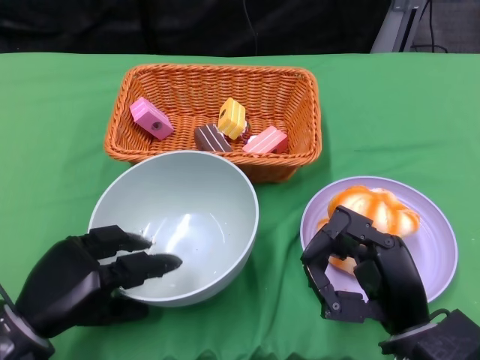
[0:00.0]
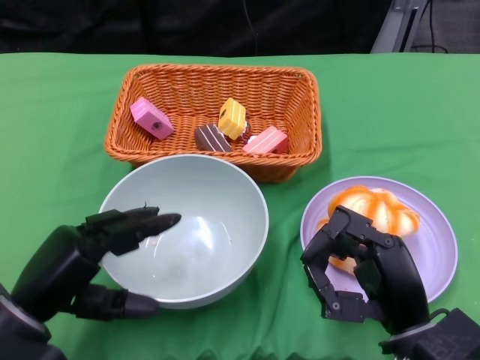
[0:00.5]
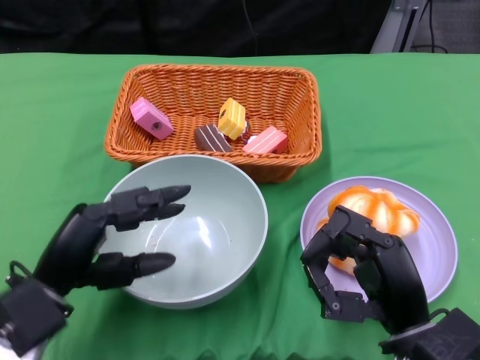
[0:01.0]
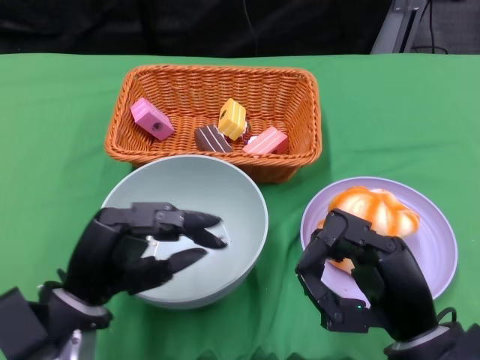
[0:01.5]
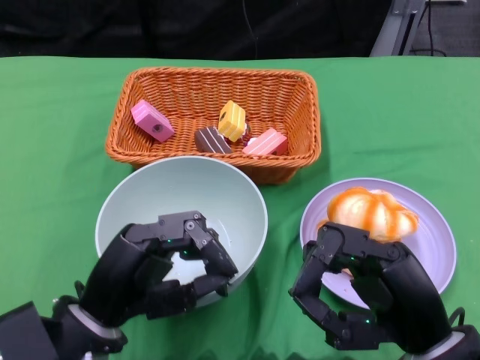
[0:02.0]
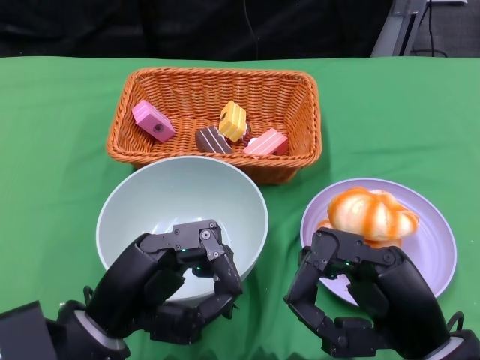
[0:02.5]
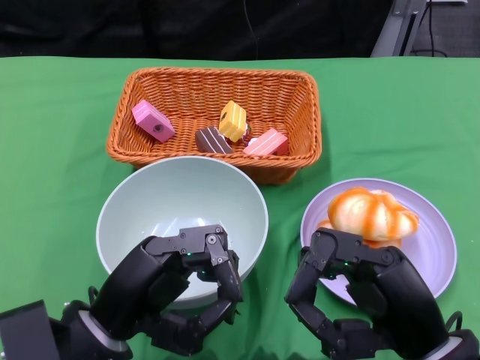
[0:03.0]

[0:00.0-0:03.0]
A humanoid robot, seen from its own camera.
0:00.0 to 0:01.5: The left hand heads to the right, covering about 5 cm.

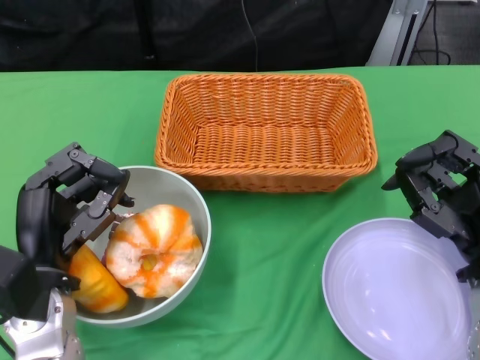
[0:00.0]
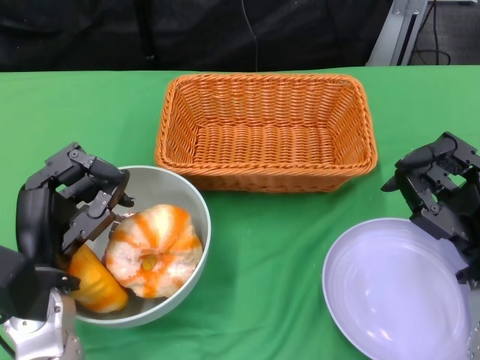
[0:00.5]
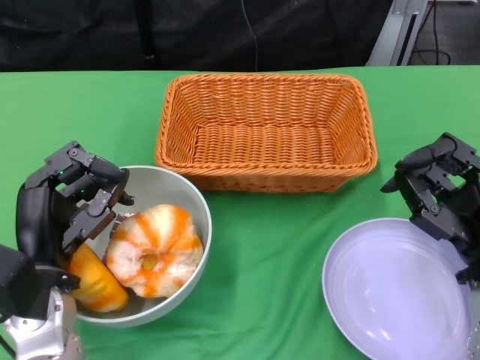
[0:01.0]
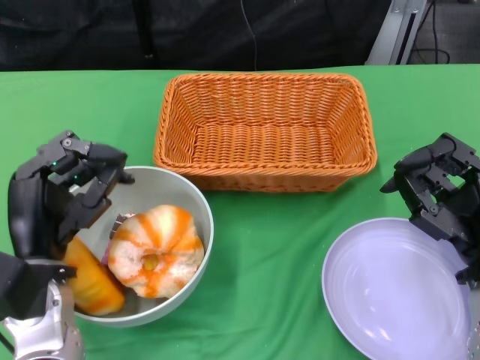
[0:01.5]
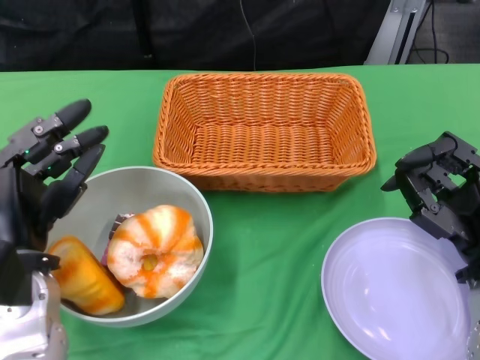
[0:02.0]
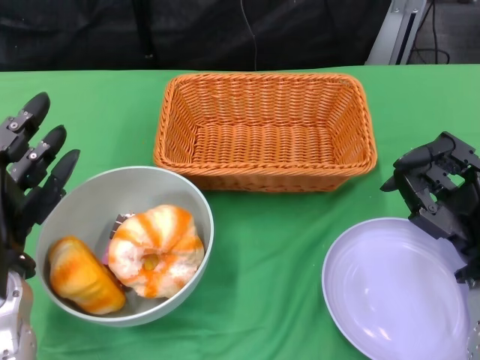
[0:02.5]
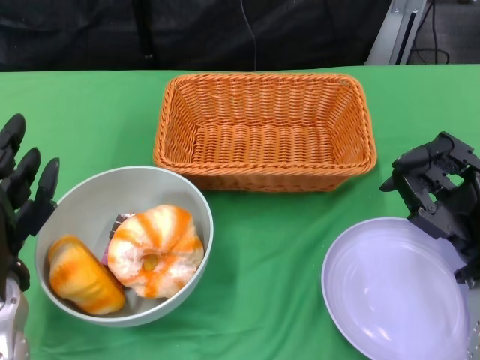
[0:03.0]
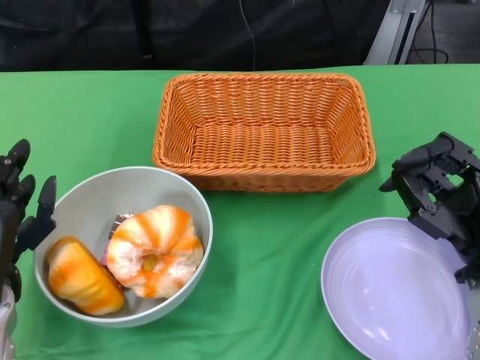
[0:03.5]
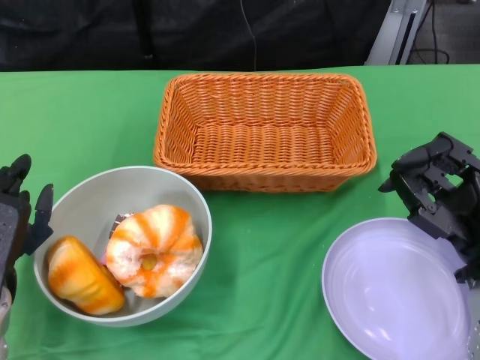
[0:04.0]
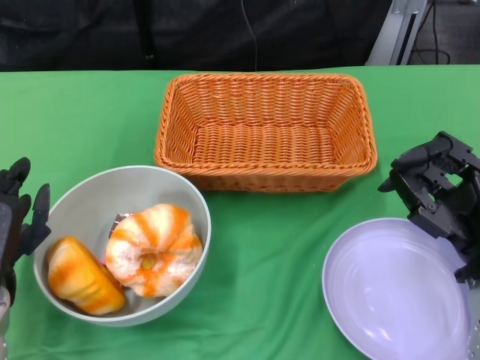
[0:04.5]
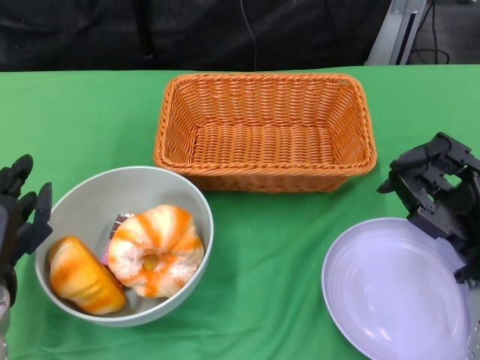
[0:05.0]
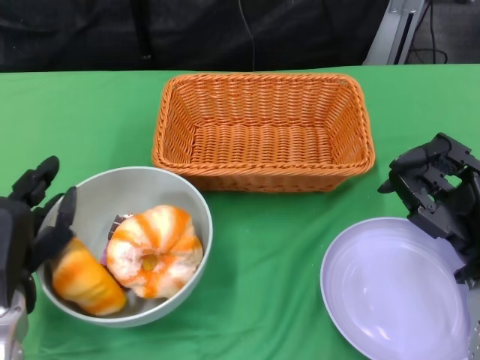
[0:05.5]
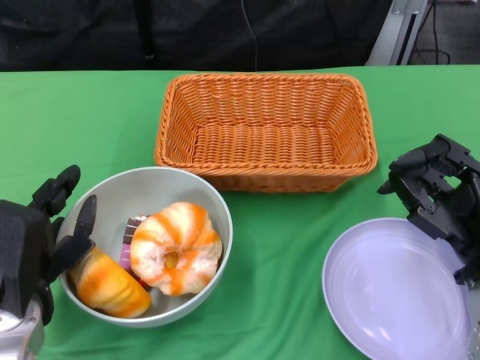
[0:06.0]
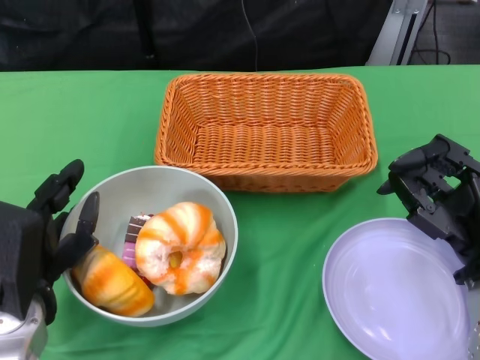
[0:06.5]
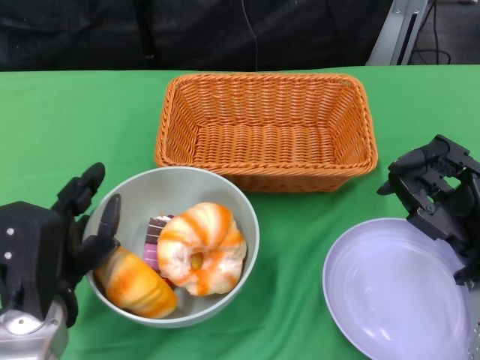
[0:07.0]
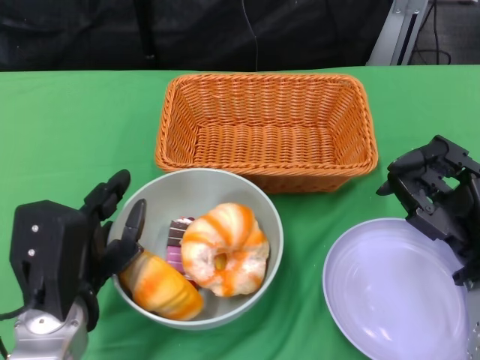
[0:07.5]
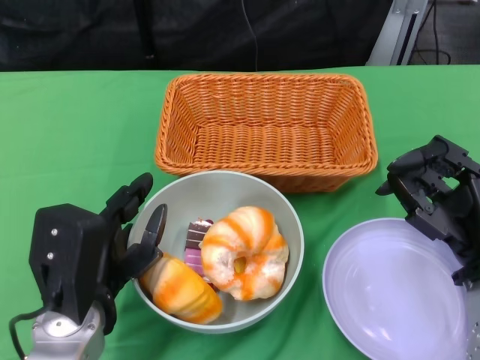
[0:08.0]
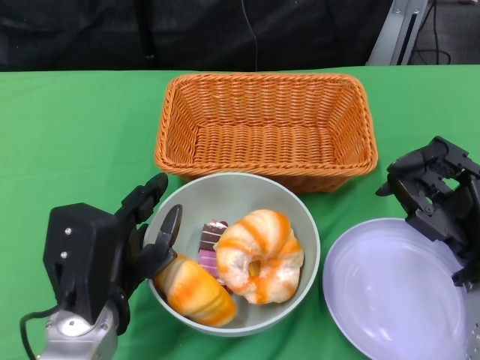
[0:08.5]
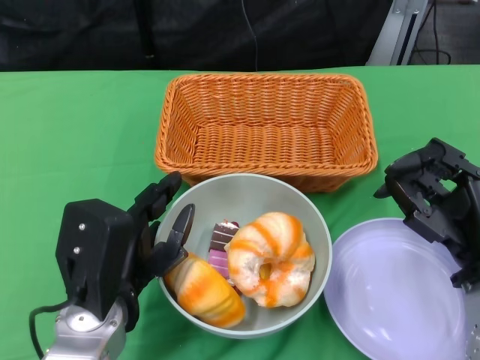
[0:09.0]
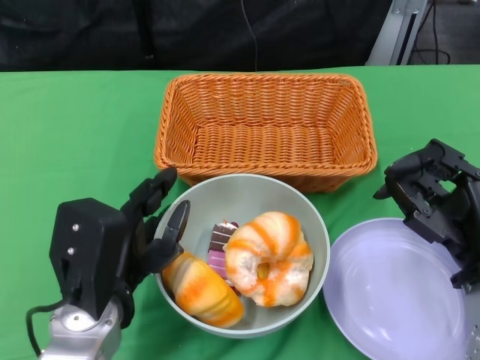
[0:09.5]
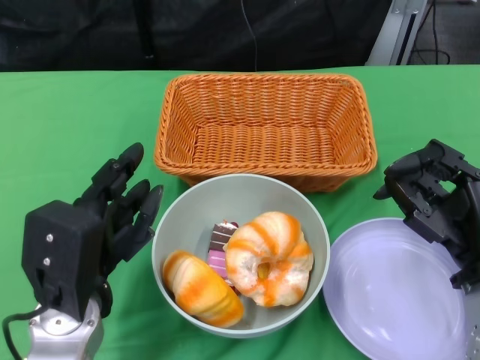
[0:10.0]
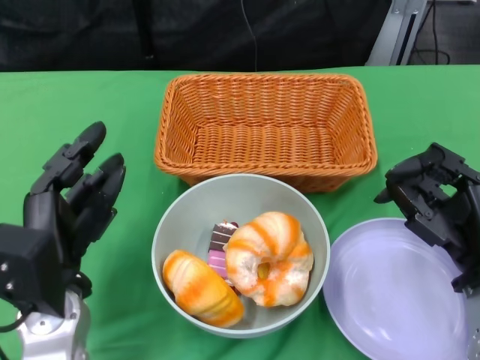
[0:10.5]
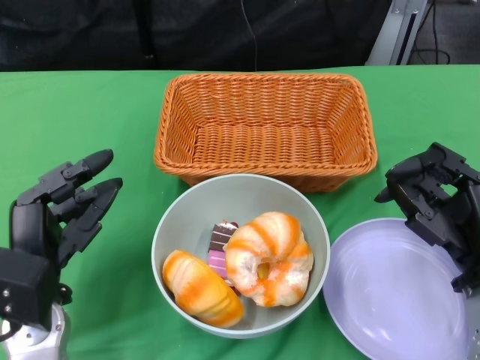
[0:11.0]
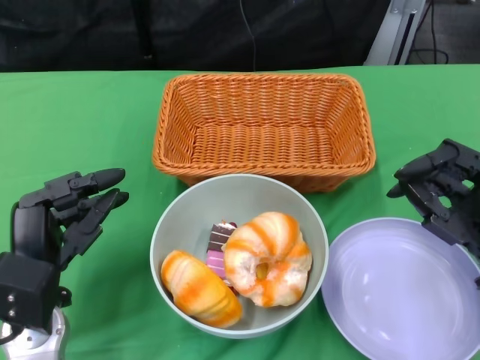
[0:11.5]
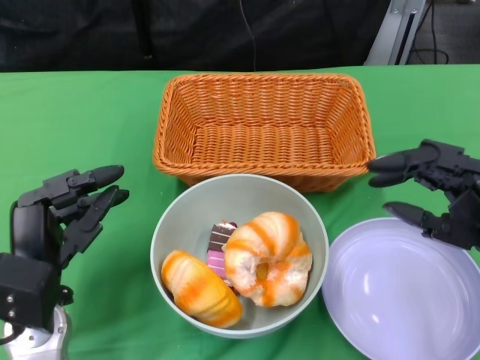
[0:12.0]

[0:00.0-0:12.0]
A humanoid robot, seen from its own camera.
Step, 0:00.0 to 0:10.0: Push the bowl to the center of the table using the left gripper.
0:04.0 to 0:06.0: The hands make only small movements.
0:06.0 to 0:08.0: The left hand travels to the right by some 5 cm.
0:08.0 to 0:10.0: The hands stay close to where they were, moving slightly.
0:10.0 to 0:12.0: The left hand moves approximately 5 cm. The right hand shifts by roughly 5 cm.

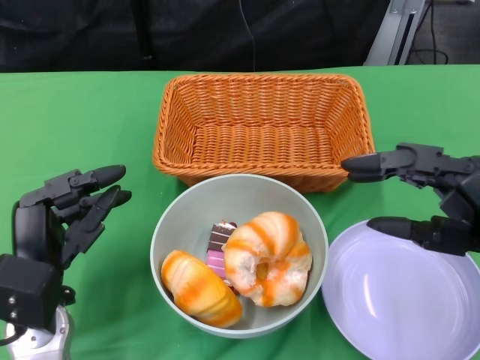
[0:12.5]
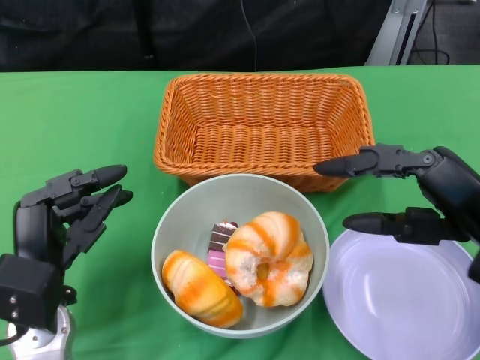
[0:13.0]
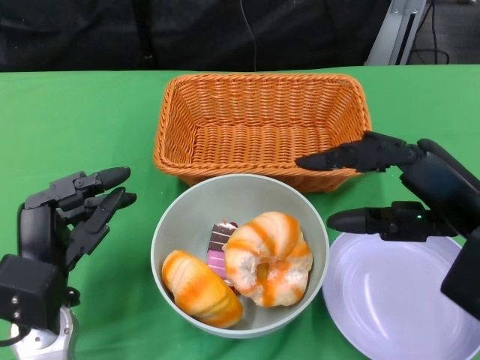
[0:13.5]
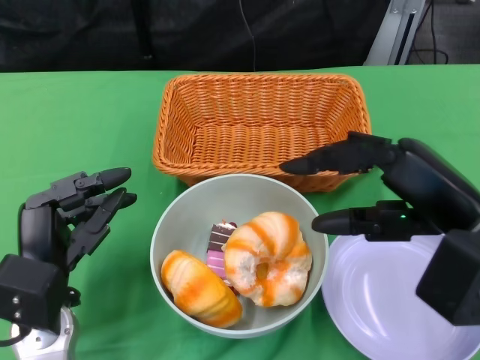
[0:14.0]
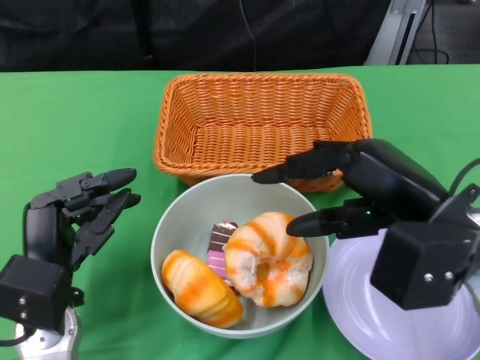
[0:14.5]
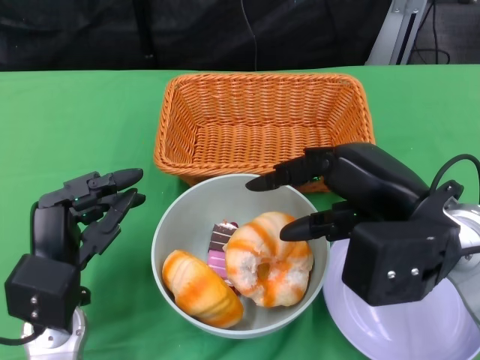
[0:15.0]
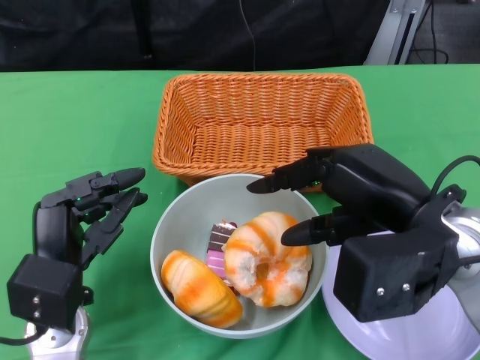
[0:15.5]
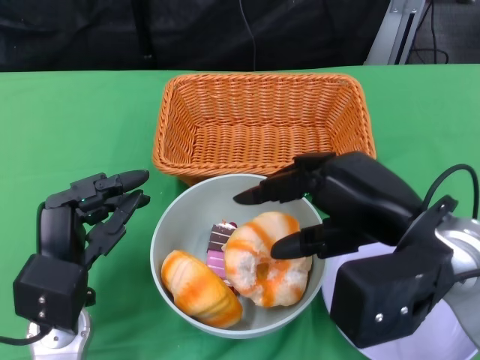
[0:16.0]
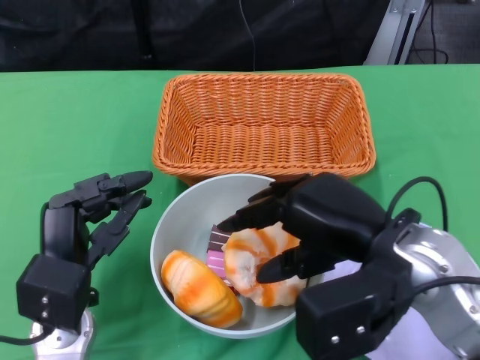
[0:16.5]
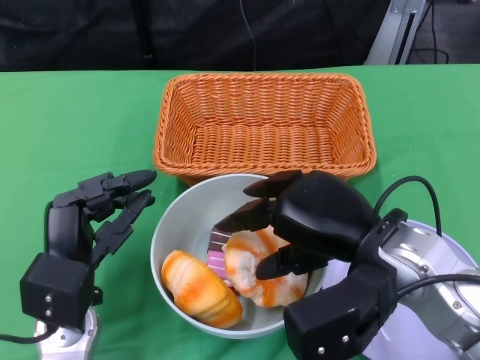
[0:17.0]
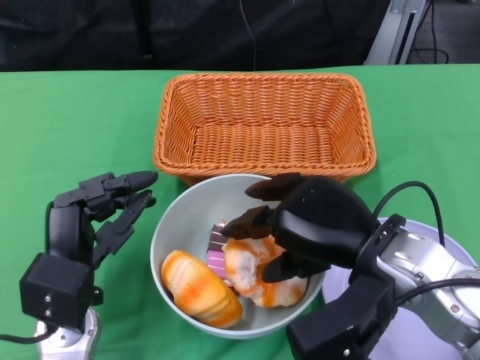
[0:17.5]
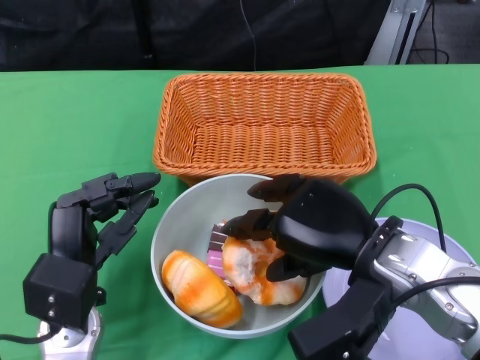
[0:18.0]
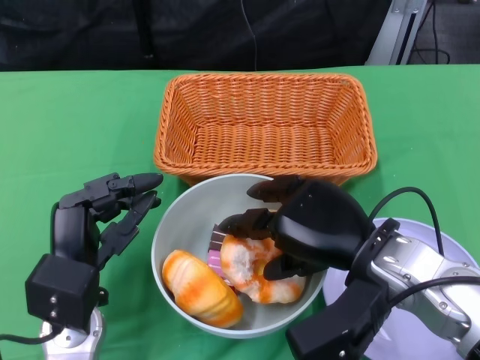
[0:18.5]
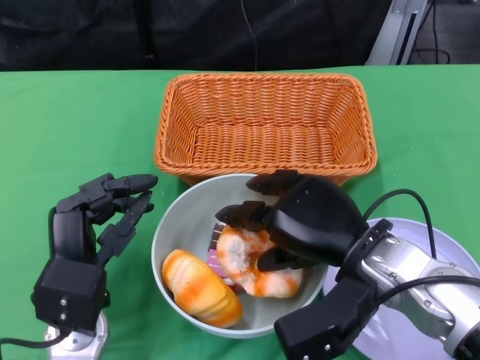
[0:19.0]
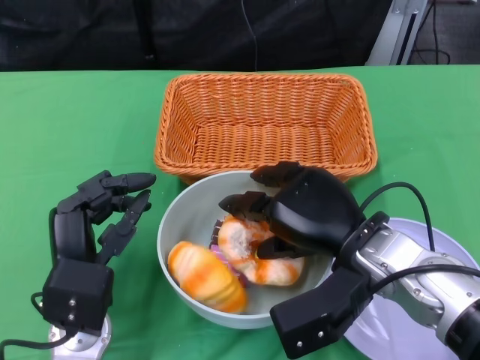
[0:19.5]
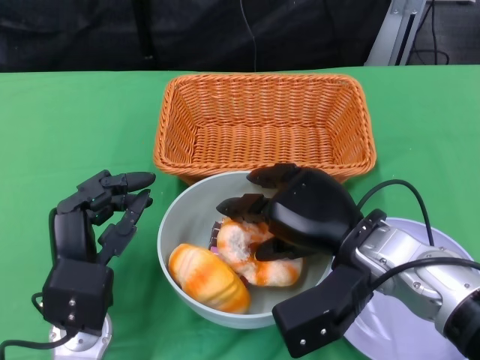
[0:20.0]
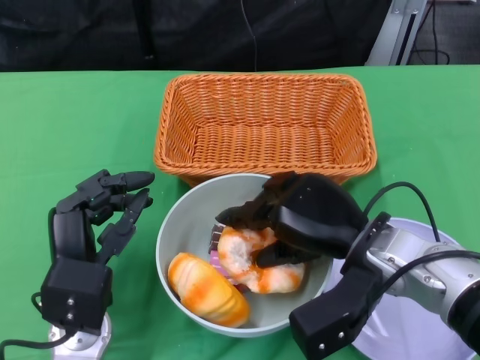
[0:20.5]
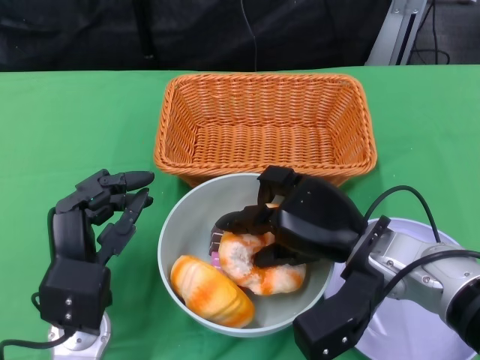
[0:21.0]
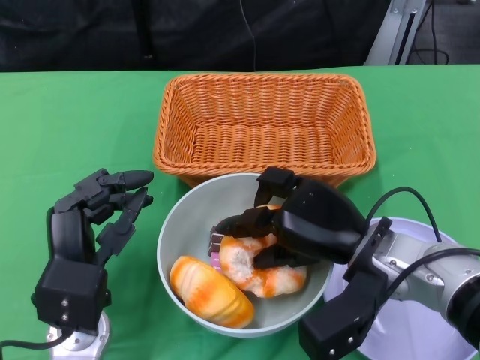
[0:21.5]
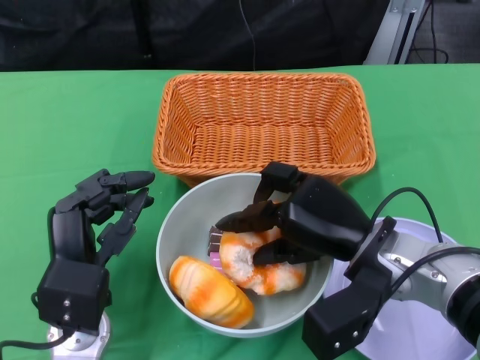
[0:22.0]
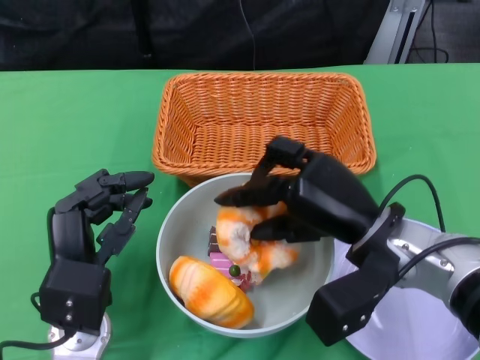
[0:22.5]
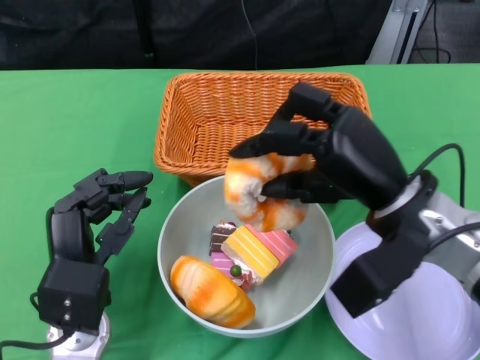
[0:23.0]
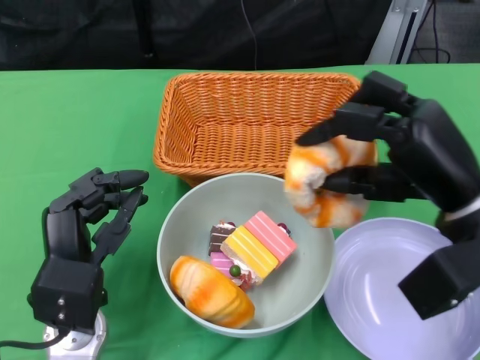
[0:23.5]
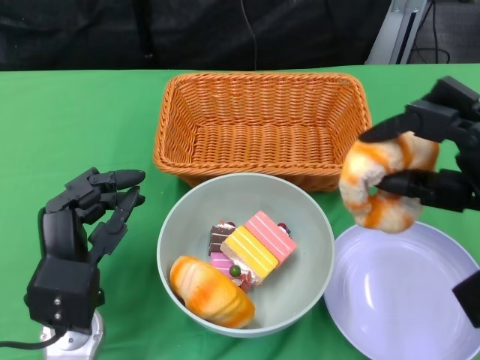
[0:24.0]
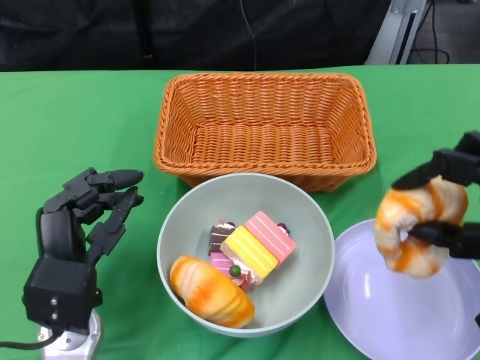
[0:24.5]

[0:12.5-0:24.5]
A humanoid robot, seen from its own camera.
0:12.5 to 0:14.5: The right hand travels to the left by approximately 5 cm.
0:18.5 to 0:20.5: The hands stay close to where they were, moving slightly.
0:22.5 to 0:24.5: The right hand is displaced to the right and backward by about 15 cm.
